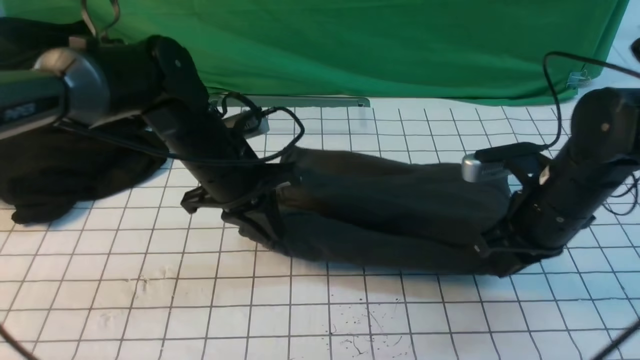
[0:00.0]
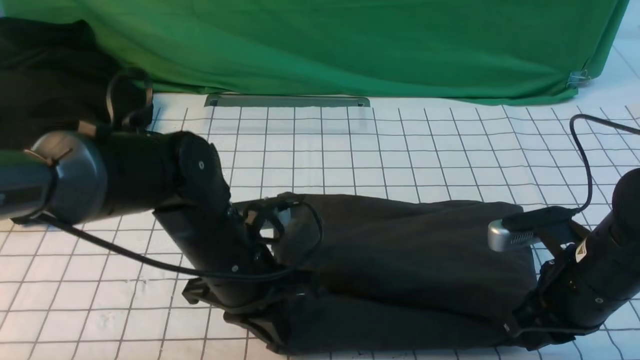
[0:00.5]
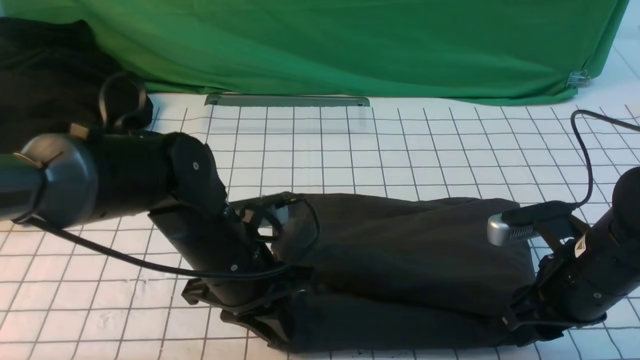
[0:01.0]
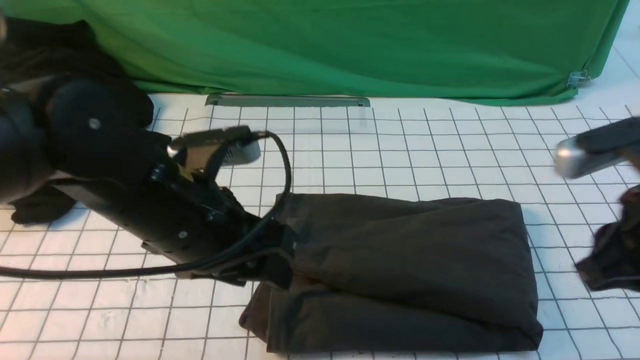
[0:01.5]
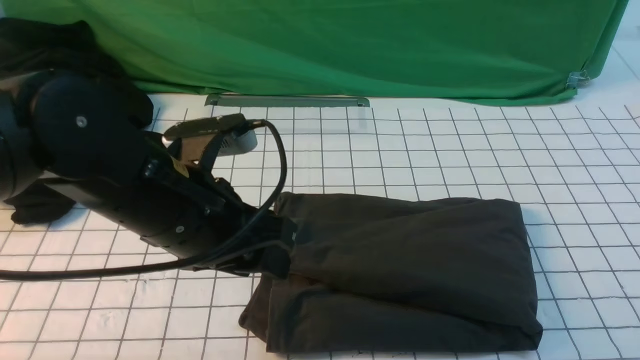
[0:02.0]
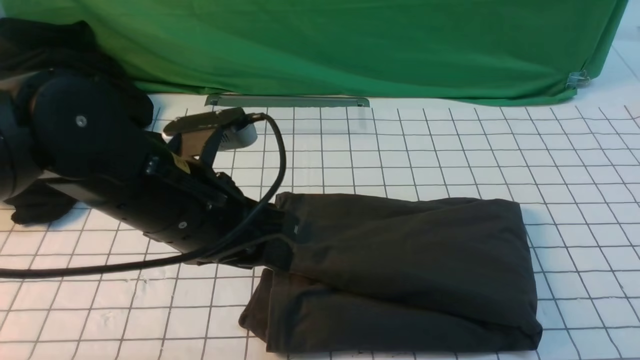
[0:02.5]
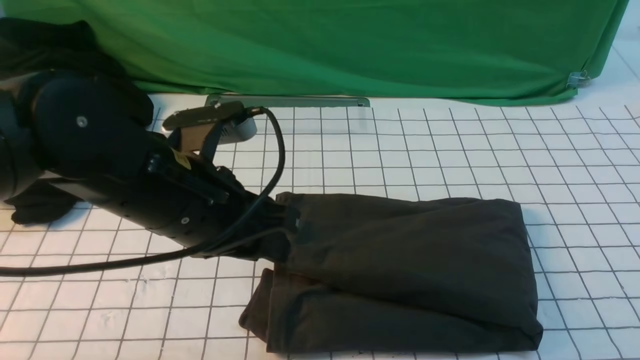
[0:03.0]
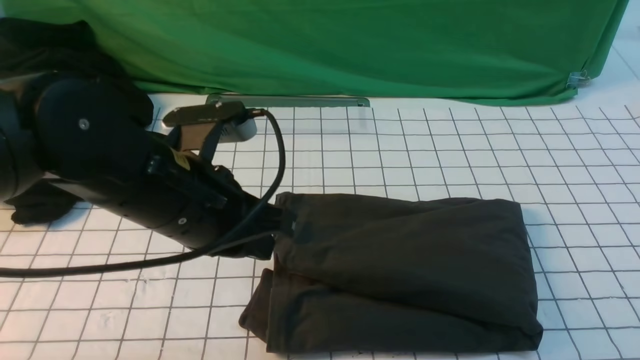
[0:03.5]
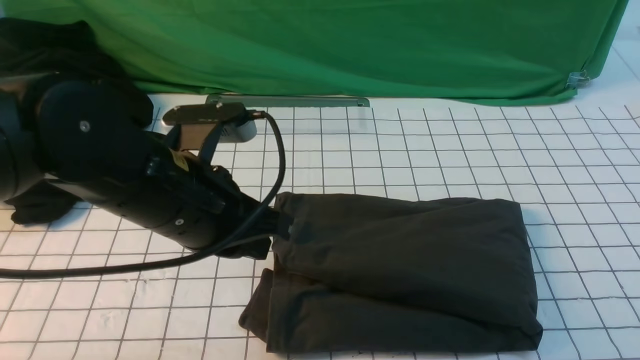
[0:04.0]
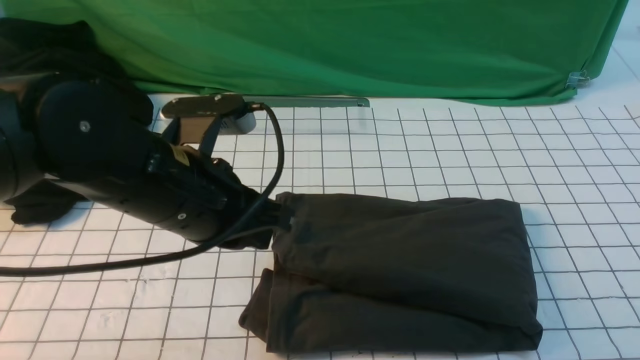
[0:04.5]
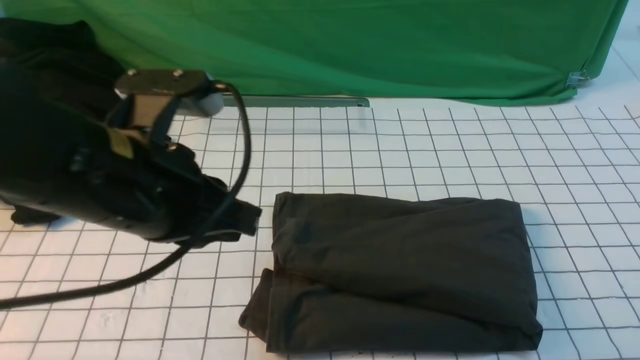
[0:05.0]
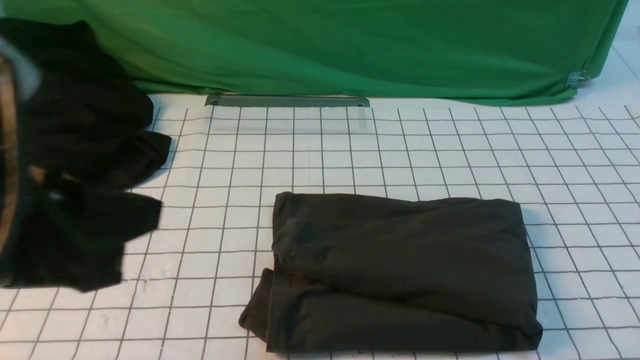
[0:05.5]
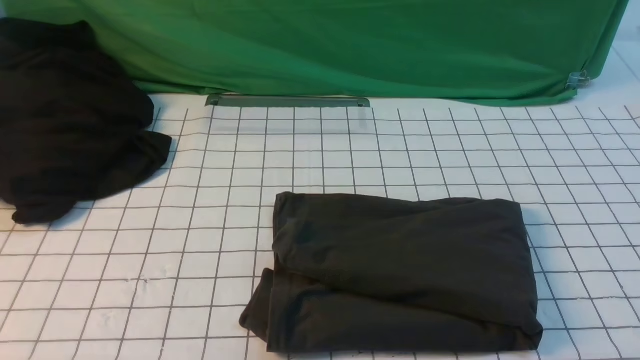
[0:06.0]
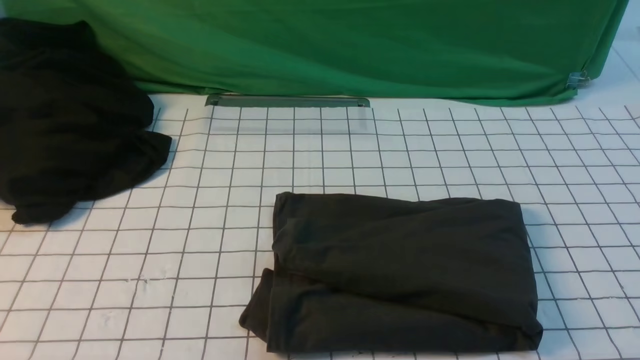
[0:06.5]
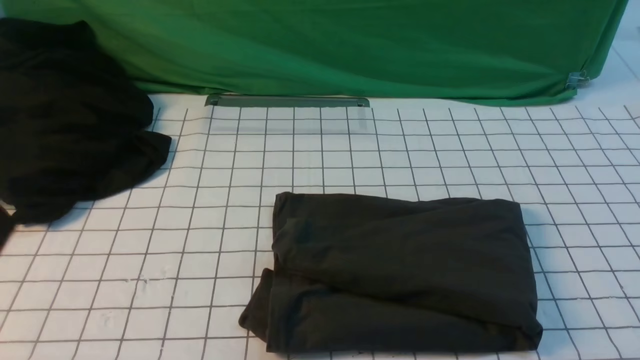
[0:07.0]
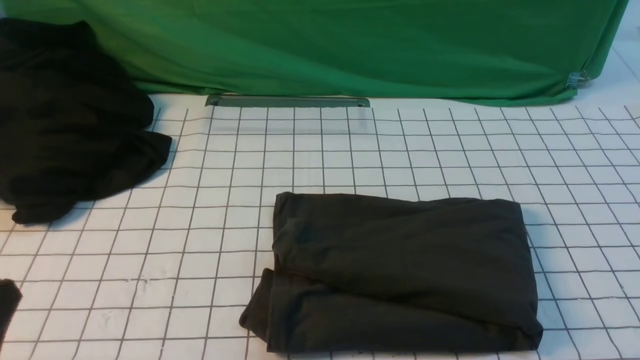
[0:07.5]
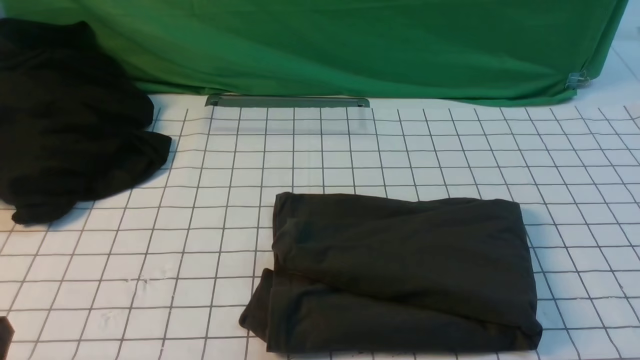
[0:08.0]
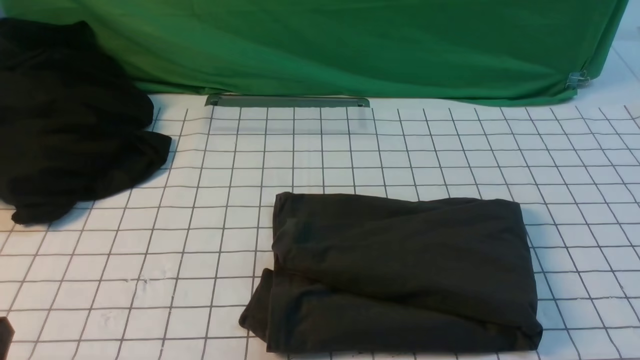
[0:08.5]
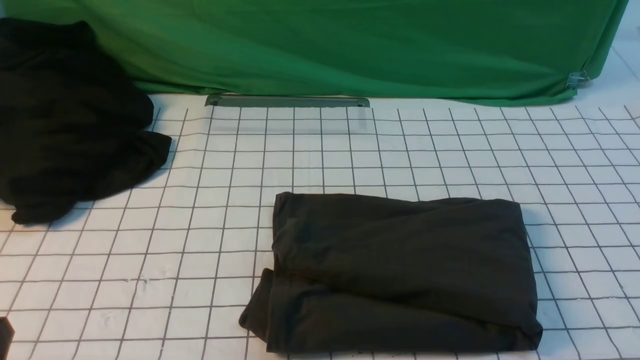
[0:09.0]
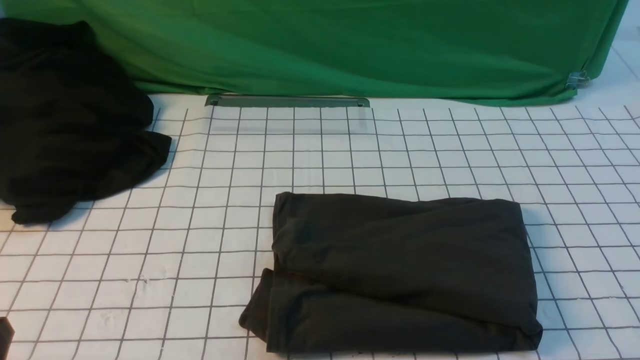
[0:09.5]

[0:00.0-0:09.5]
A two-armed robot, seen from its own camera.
0:00.0 to 0:02.0: The right gripper moves backward and upward, some 35 cm, and opens, then closes again, while the left gripper shifts approximately 15 cm backward and upward, and opens up.
0:02.0 to 0:04.0: The right gripper travels downward by roughly 15 cm; the left gripper closes up.
0:04.0 to 0:05.5: The left gripper is displaced backward, upward and to the left by approximately 20 cm; the right gripper heads downward, covering roughly 10 cm.
0:05.5 to 0:07.5: The left gripper goes roughly 15 cm downward, to the left and backward.

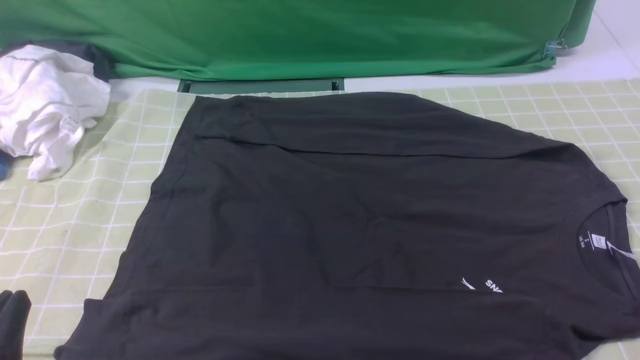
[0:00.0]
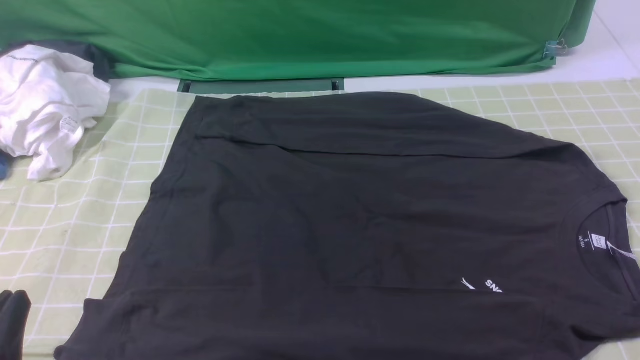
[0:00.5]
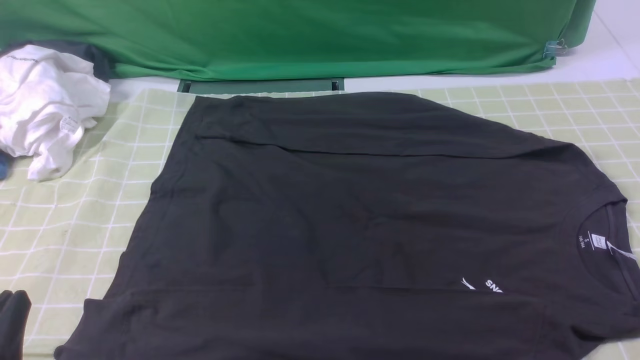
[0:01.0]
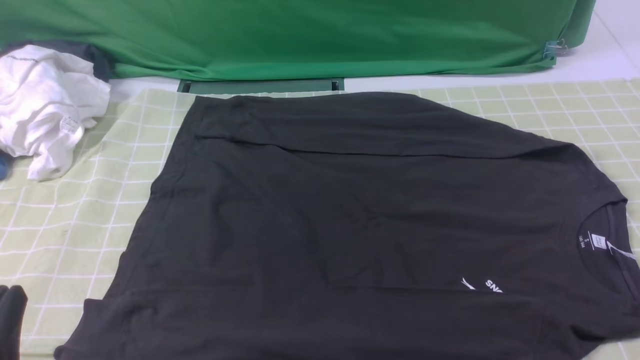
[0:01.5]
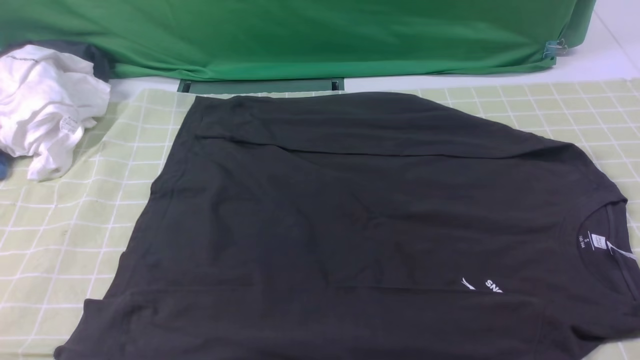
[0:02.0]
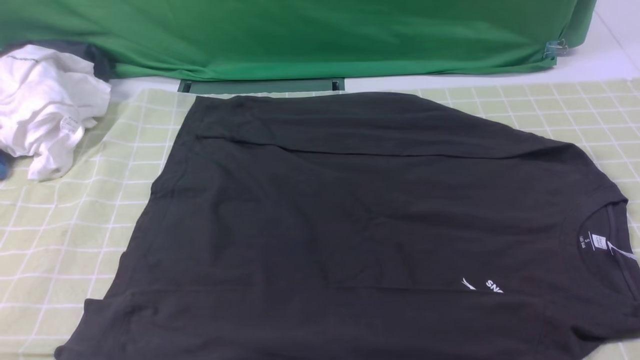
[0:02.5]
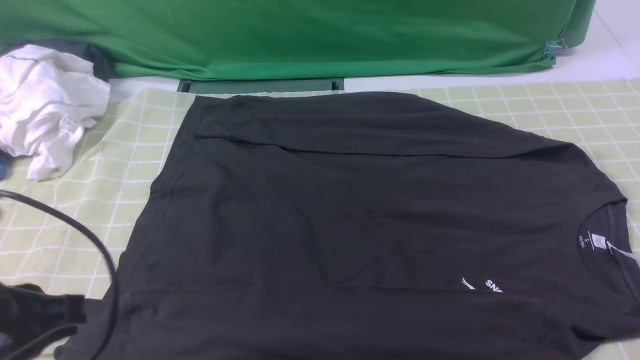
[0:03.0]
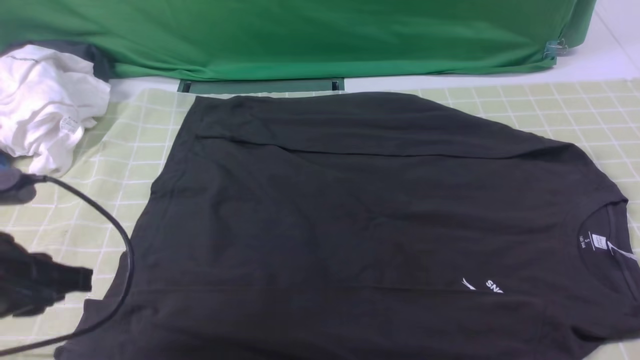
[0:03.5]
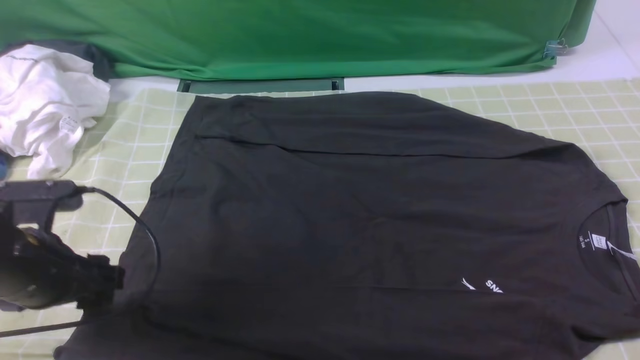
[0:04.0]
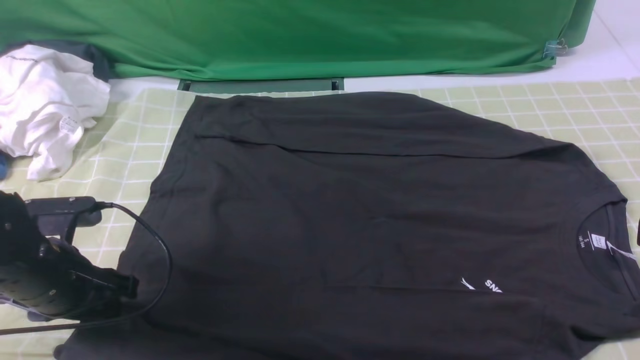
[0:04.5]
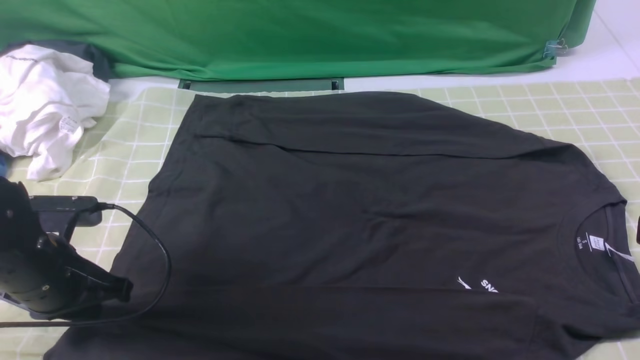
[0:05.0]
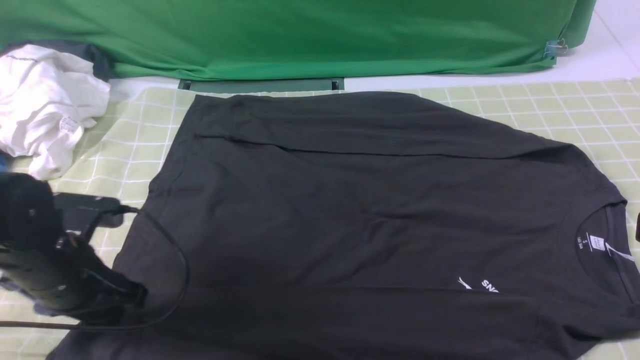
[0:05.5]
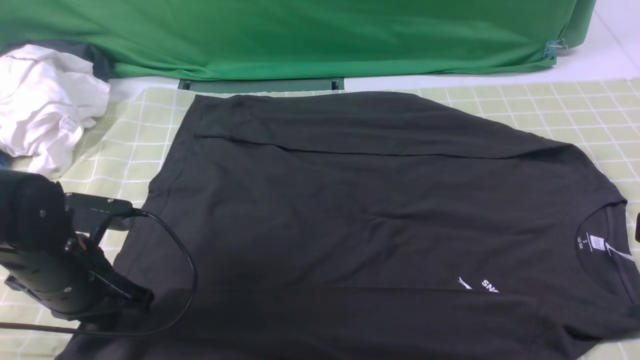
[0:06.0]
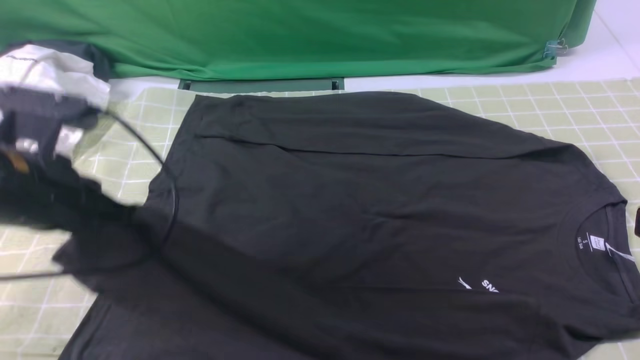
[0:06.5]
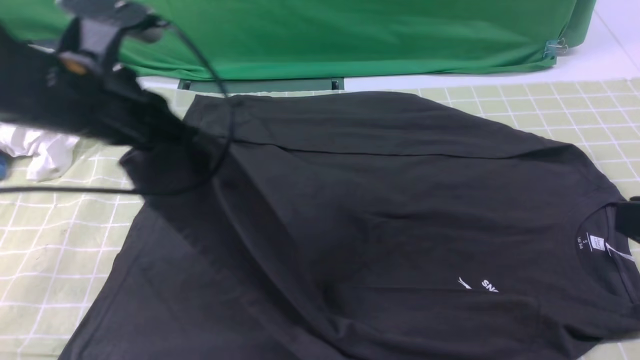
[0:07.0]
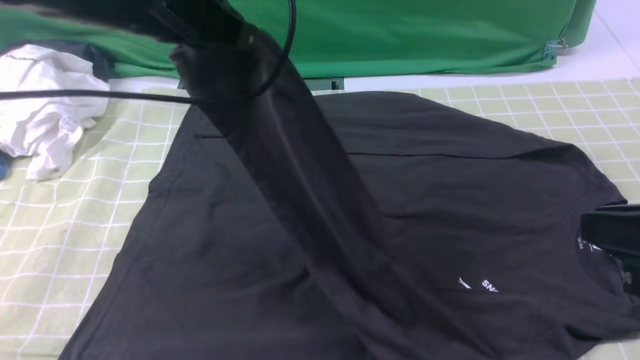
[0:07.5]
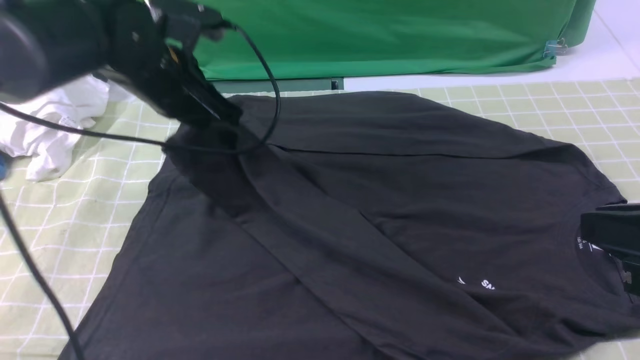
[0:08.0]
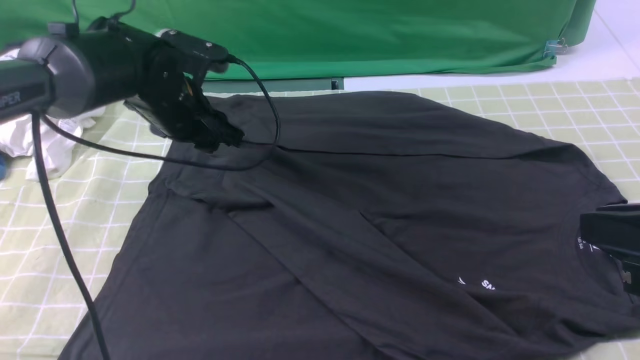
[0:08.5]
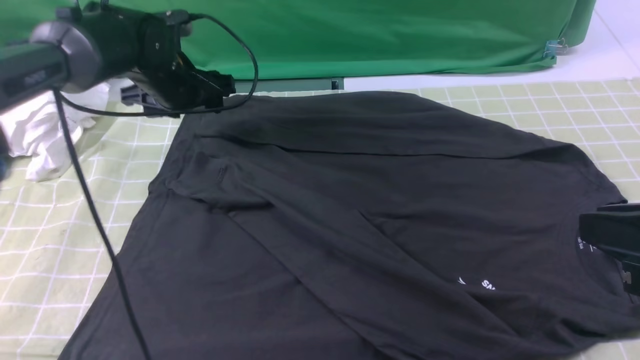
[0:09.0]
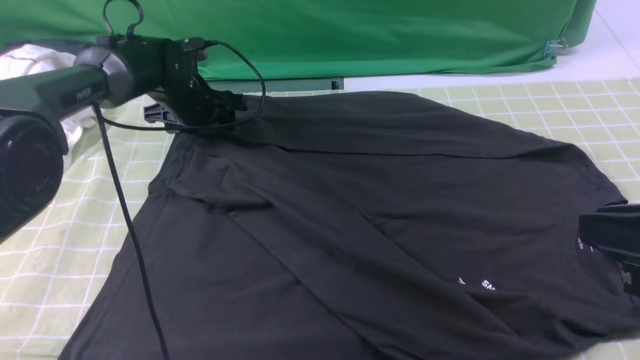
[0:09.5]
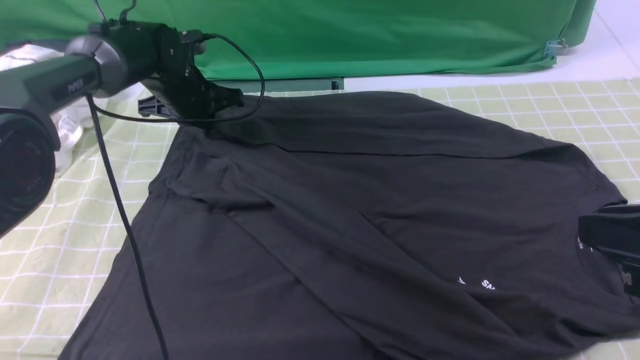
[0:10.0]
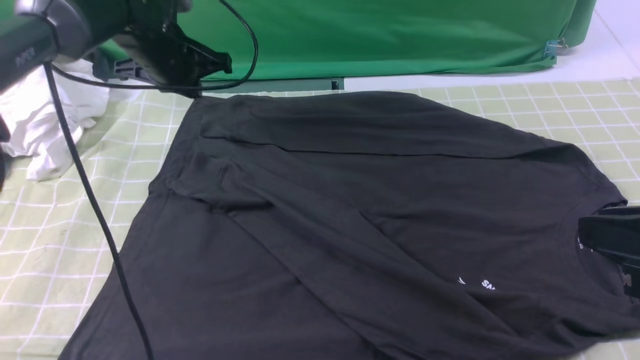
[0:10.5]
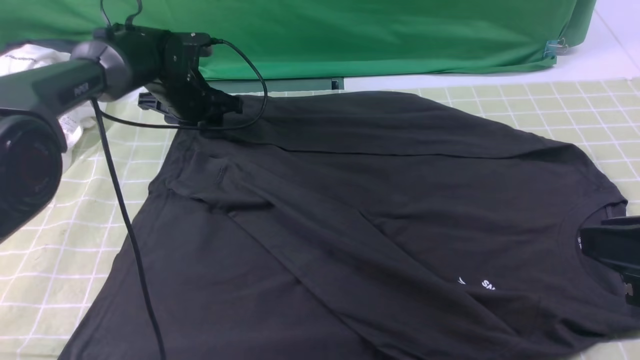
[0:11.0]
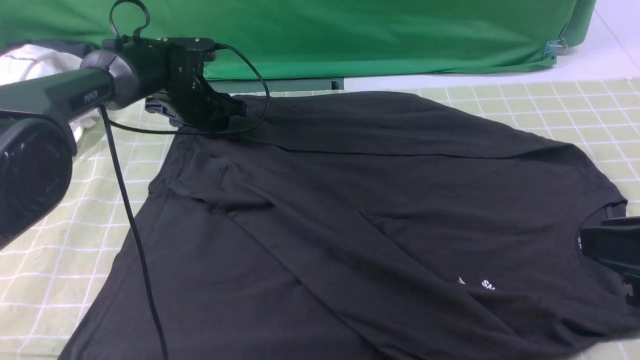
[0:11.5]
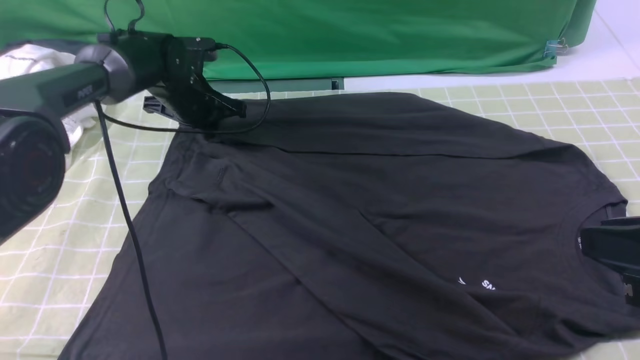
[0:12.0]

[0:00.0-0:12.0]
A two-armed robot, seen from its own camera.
Step, 0:00.0 to 0:04.5: use the left arm to clamp the cuff closest to it.
Step, 0:05.0 to 0:08.0: use the left arm to drag and place the cuff at the centered position on the left edge of the fabric.
Step, 0:08.5 to 0:11.5: use the left arm to clamp the cuff farthest from it.
0:02.0 to 0:04.0: The left gripper shifts some 15 cm forward, and opens up, while the right gripper is displaced upward by about 15 cm, and closes up.
0:04.0 to 0:06.0: The left gripper closes up.
0:06.0 to 0:08.0: The left gripper is displaced forward, upward and to the right by roughly 20 cm.
0:08.0 to 0:10.0: The left gripper moves forward and downward, some 15 cm, and opens and closes again.
0:10.0 to 0:12.0: The left gripper travels upward and back again, approximately 5 cm each way, and opens and closes again.
